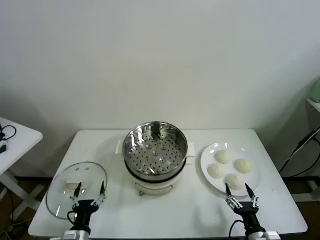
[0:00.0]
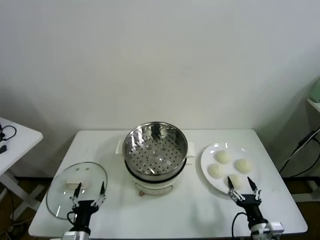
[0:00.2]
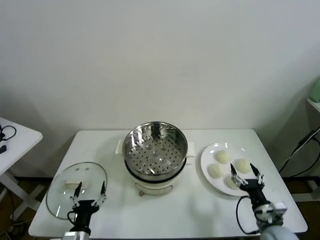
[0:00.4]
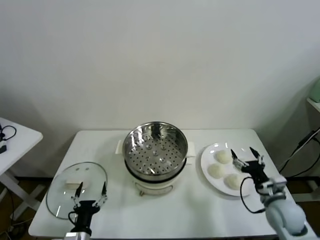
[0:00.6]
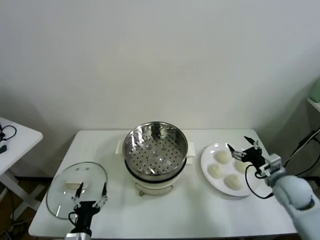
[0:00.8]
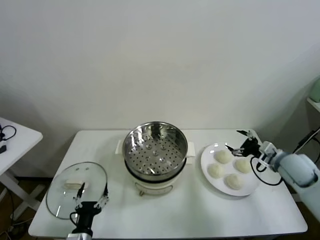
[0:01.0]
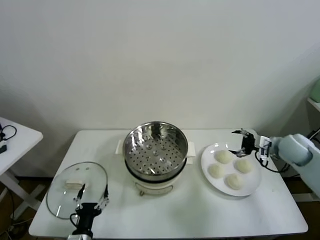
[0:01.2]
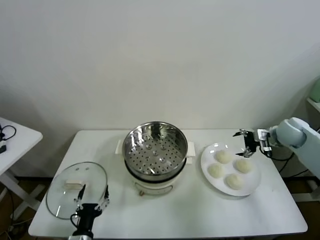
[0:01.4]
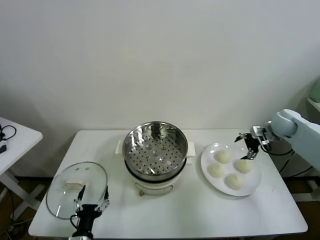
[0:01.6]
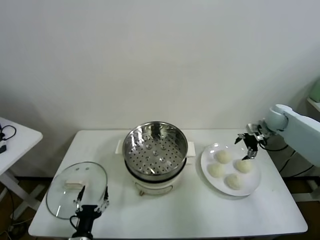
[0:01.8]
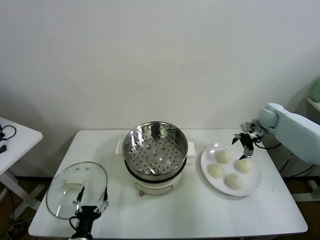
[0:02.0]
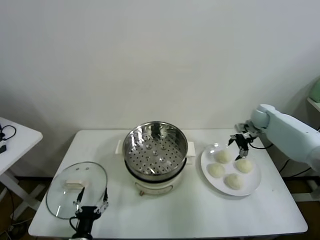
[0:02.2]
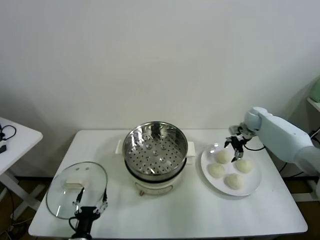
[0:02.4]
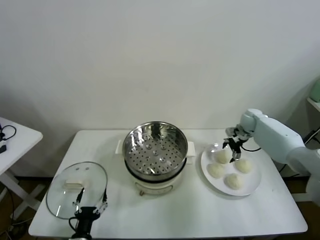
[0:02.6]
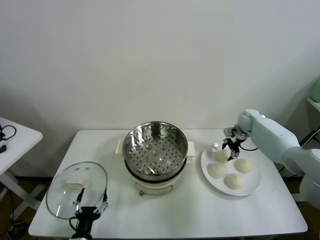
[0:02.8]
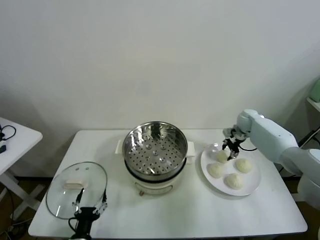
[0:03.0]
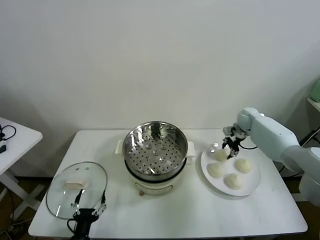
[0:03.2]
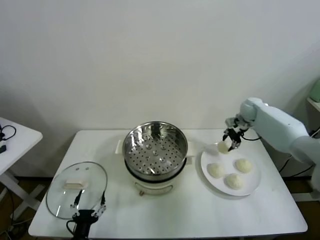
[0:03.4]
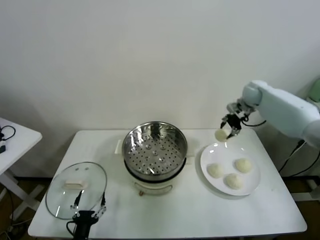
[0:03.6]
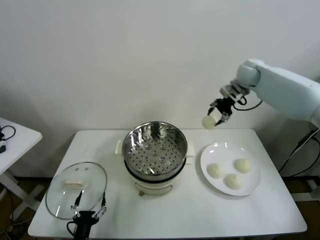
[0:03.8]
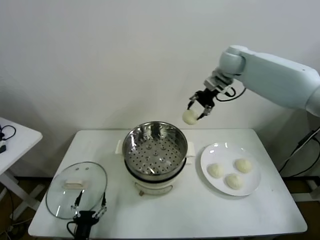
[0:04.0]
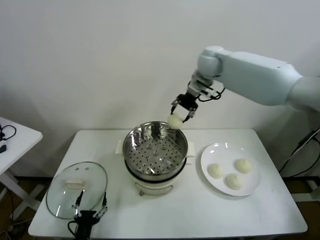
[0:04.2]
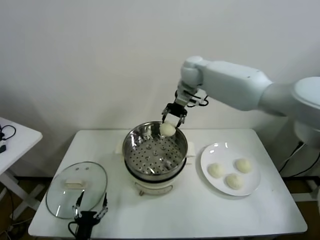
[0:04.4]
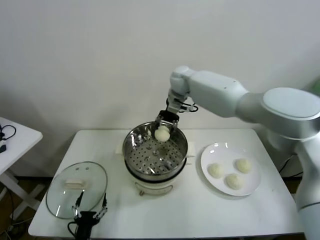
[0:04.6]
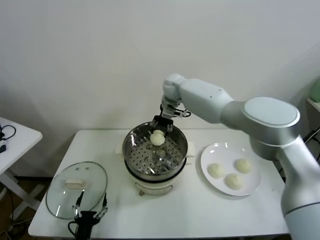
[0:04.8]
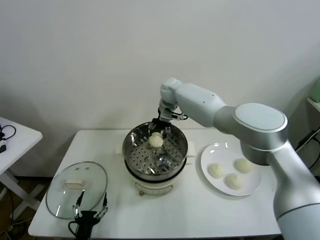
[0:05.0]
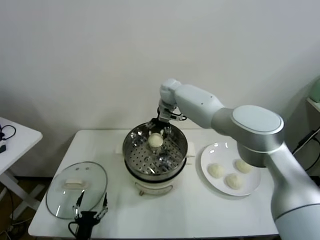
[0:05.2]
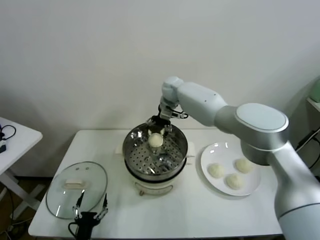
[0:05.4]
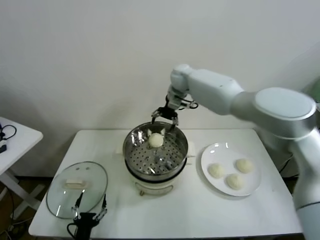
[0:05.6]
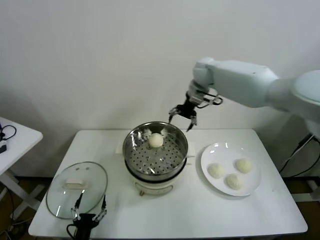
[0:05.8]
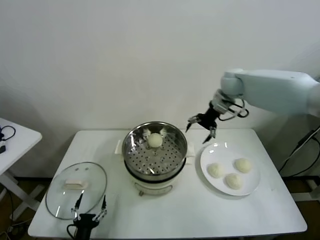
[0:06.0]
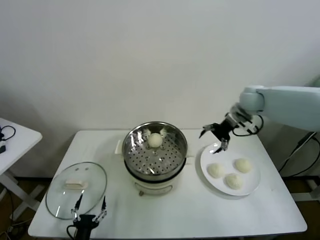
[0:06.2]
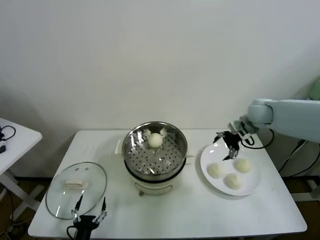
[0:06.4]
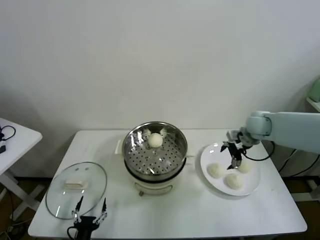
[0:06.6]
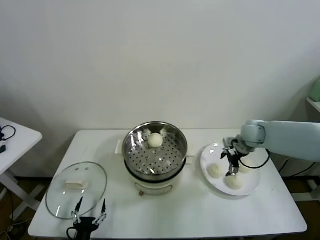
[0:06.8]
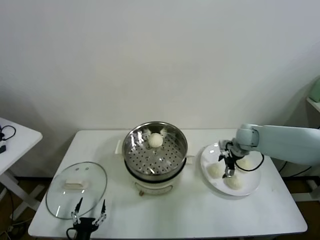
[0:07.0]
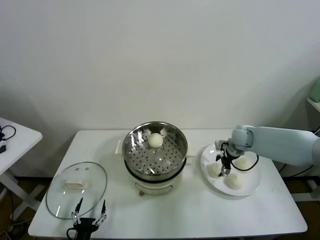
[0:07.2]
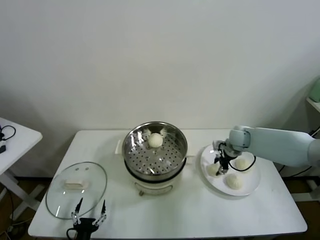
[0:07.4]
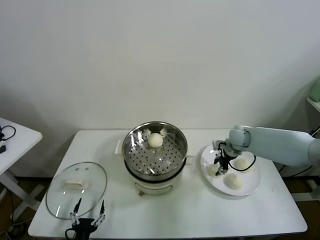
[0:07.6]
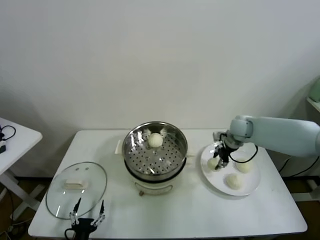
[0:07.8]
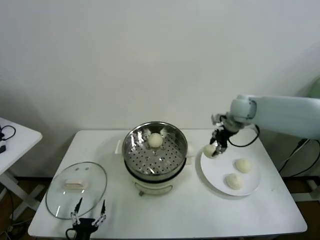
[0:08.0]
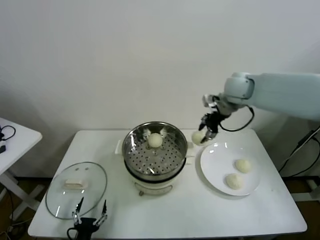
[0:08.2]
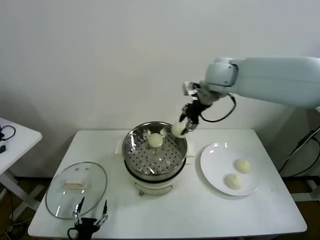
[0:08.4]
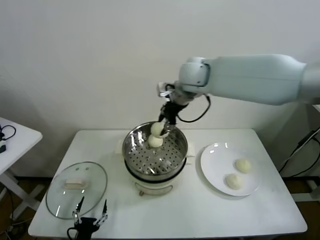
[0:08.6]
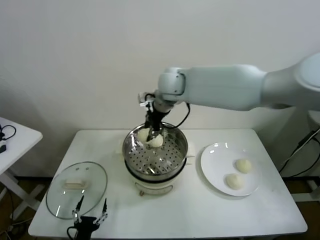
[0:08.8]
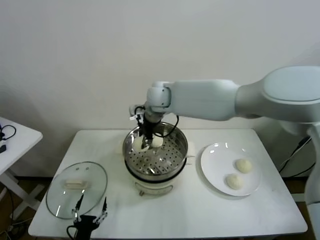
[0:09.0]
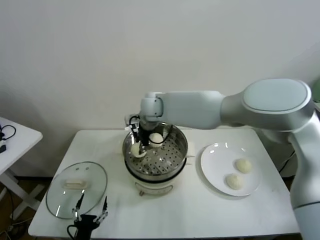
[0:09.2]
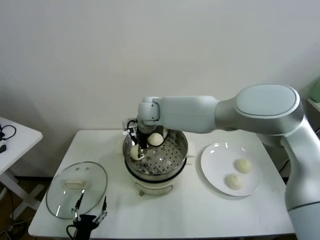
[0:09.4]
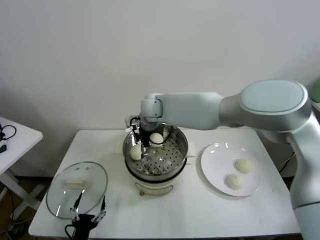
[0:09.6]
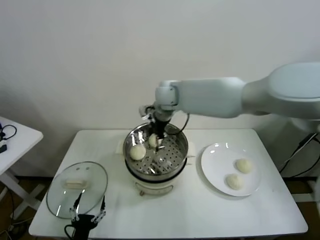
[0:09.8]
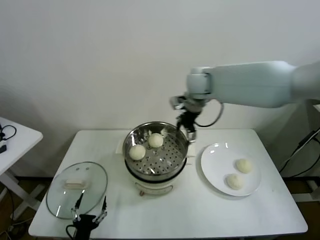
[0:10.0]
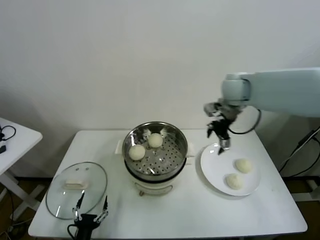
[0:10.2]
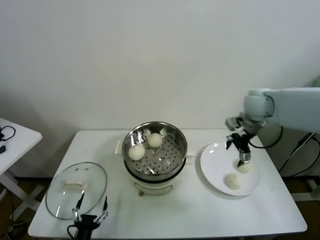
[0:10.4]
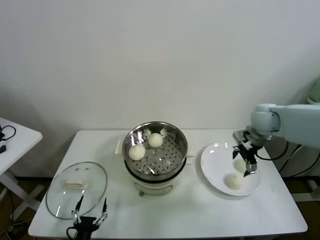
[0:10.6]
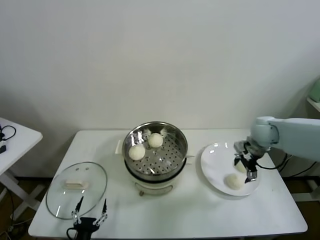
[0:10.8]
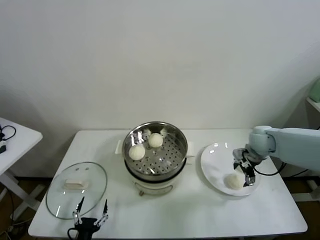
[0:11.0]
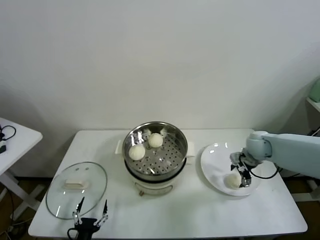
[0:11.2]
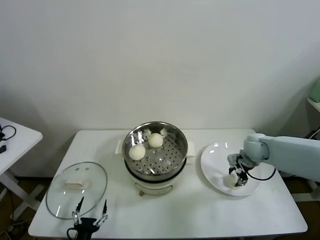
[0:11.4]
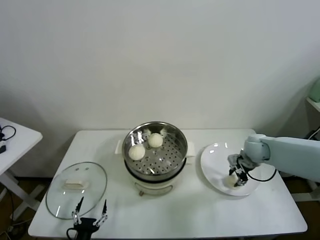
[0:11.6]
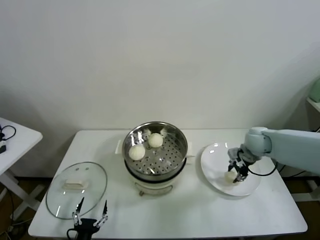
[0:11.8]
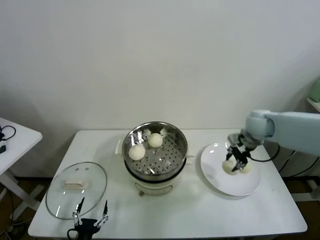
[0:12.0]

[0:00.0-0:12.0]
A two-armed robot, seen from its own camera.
Task of the whole recording: take steamed baozi put them in steamer.
Step, 0.0 to 2.6 s: Grasp the baozi in the plate with right gripper.
Step, 3.0 to 5.2 s: Place the baozi on the steamer with right gripper.
Step, 5.4 to 7.2 s: Grasp the baozi in the plate with right gripper.
Step, 7.4 to 9.4 s: Place the baozi on the steamer with right gripper.
Step, 9.6 to 11.4 s: Grasp the baozi in the plate with right gripper.
1.6 to 3.0 s: The right gripper is displaced forward, downward and to the left by roughly 15 cm, and closes its fingers.
3.0 to 4.4 s: The right gripper travels to the left and upward by some 35 cm.
4.4 to 6.0 s: The right gripper goes about 15 cm to the right, and opens up.
6.0 to 7.6 s: The right gripper goes roughly 20 cm downward, and closes.
7.6 to 9.0 s: The right gripper shifts some 35 cm to the left and upward.
9.0 to 10.4 s: The right gripper is displaced to the right by about 30 cm, and opens its fingers.
10.4 to 12.0 s: The right gripper heads downward, covering approximately 10 cm, and closes.

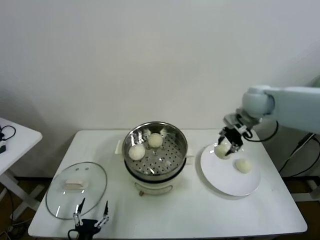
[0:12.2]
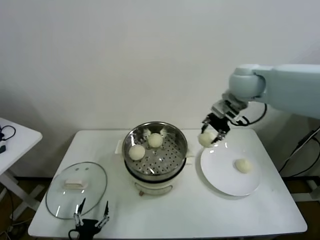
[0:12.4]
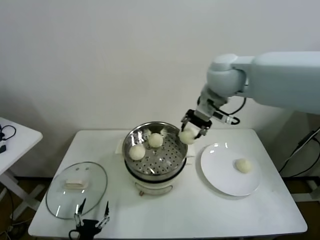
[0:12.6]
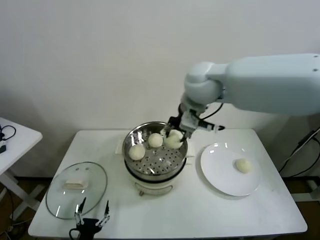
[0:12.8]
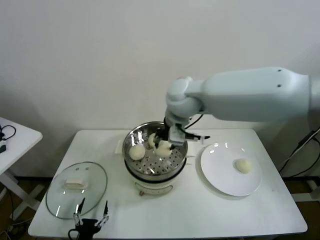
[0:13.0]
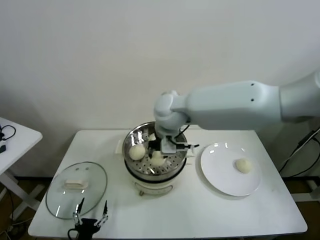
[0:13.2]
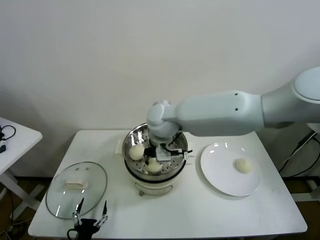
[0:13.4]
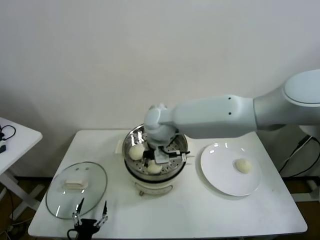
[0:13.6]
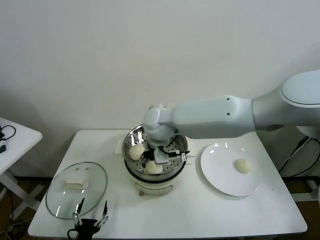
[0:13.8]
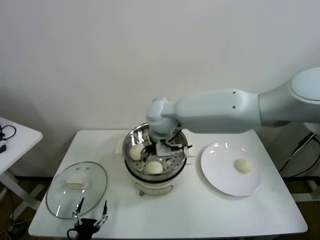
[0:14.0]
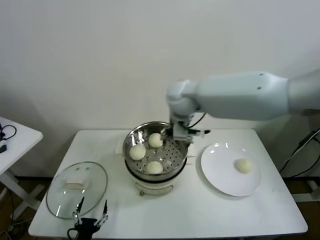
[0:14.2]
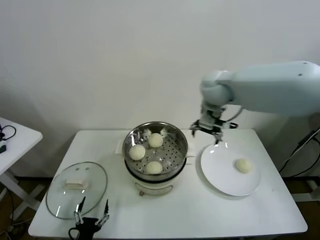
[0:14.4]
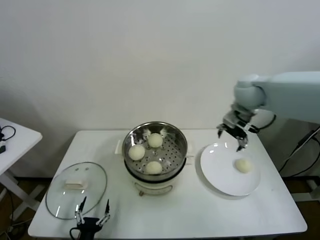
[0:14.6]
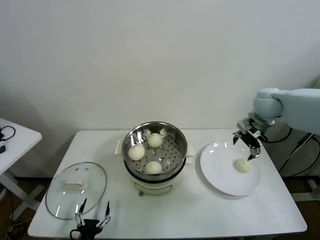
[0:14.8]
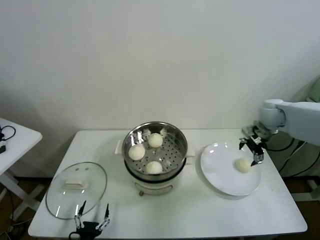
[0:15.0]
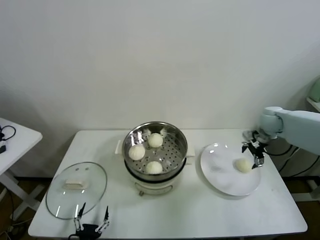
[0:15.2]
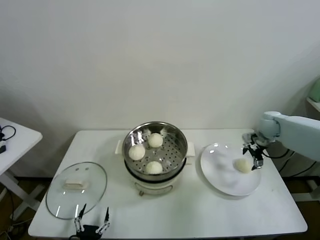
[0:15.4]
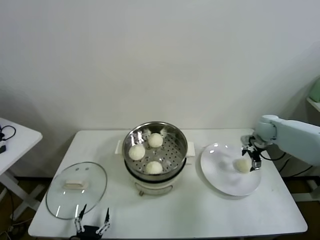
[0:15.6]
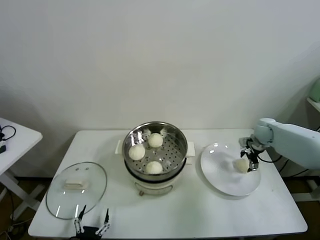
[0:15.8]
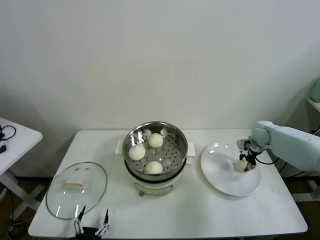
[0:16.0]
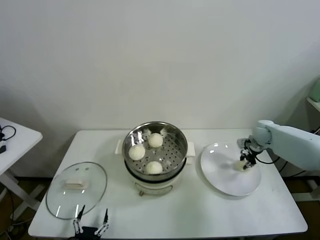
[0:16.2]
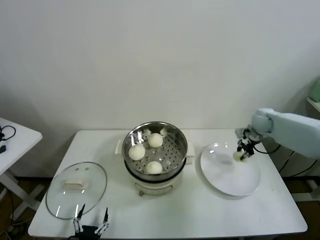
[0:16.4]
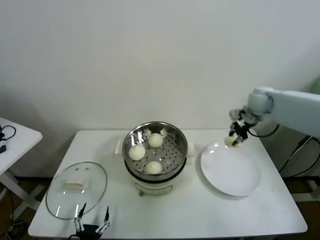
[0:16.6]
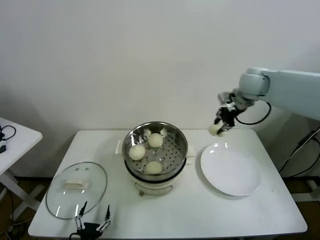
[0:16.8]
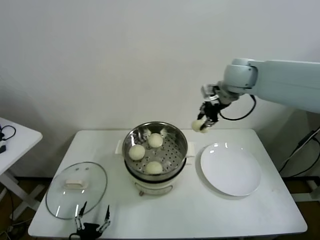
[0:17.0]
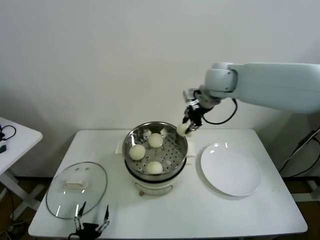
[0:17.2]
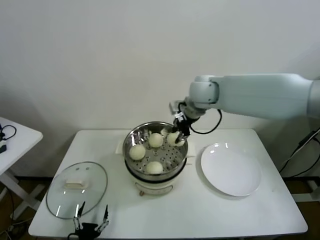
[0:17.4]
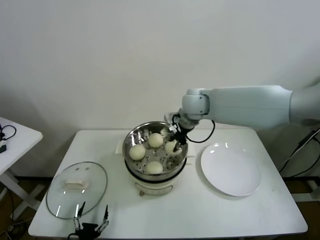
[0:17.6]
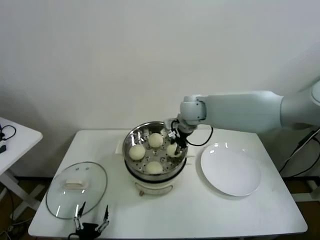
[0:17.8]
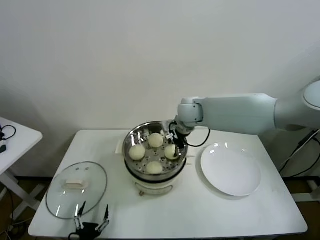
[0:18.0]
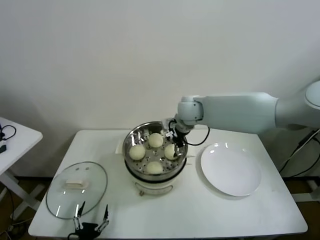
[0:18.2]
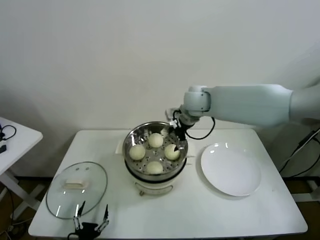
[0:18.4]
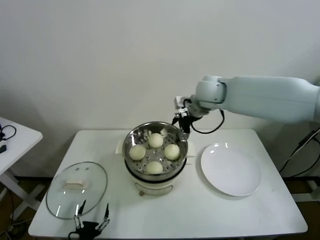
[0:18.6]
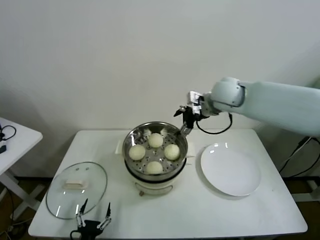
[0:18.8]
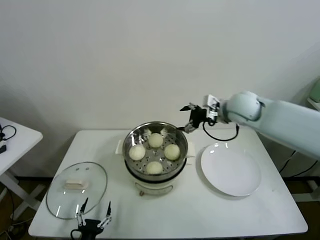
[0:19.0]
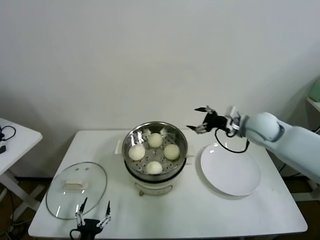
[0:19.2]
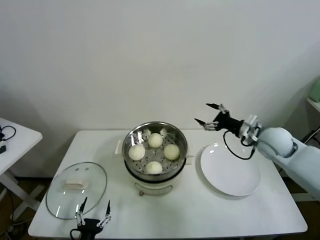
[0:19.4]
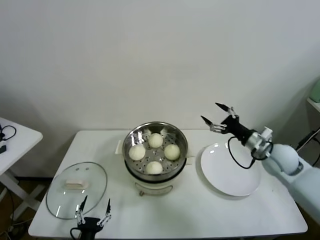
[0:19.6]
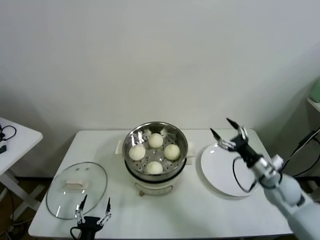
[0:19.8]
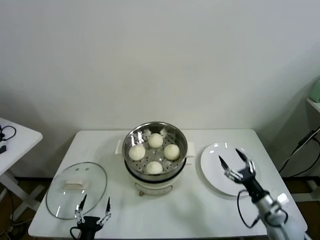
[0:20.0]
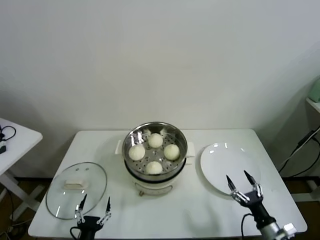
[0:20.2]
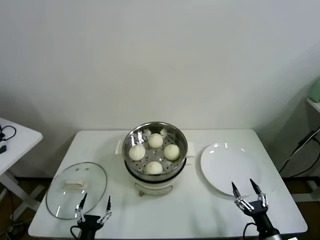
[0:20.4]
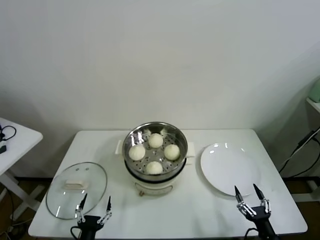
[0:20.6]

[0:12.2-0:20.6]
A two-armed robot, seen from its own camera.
Task of the whole recording: take steamed baozi put them in steamer.
Step, 12.2 to 13.8 s: Place the baozi on the steamer with right gripper.
Step, 14.0 to 15.8 s: Grasp the baozi in the plate with right gripper.
Step, 16.0 to 18.0 s: Place the baozi on the steamer with right gripper.
12.2 to 13.6 s: The right gripper travels to the left by approximately 30 cm.
13.6 to 15.0 s: The right gripper moves to the right, approximately 40 cm, and opens its fingers.
15.0 to 16.4 s: The right gripper moves downward, roughly 10 cm, and closes.
16.4 to 17.8 s: The right gripper goes approximately 30 cm to the left.
17.8 to 19.2 s: The right gripper goes some 20 cm to the right, and opens.
19.2 to 20.6 s: The right gripper goes some 50 cm backward and downward.

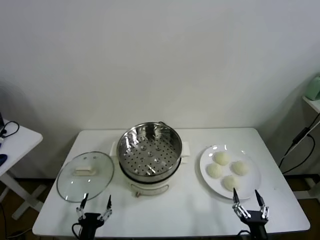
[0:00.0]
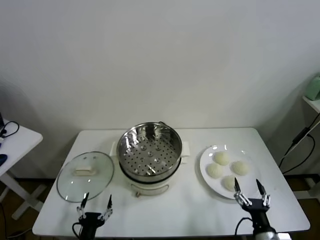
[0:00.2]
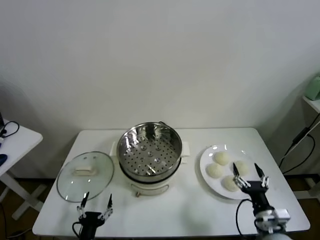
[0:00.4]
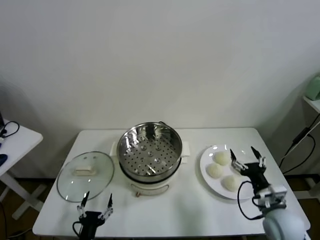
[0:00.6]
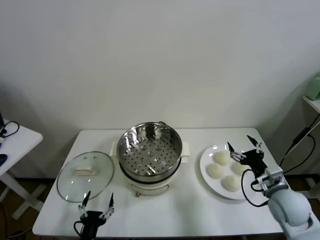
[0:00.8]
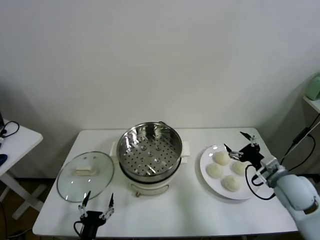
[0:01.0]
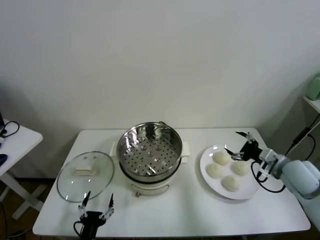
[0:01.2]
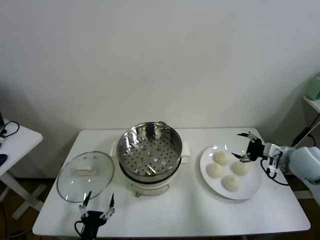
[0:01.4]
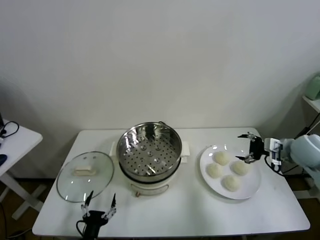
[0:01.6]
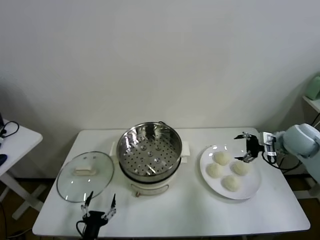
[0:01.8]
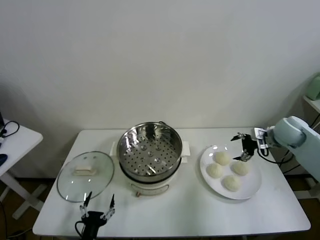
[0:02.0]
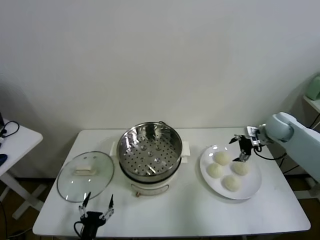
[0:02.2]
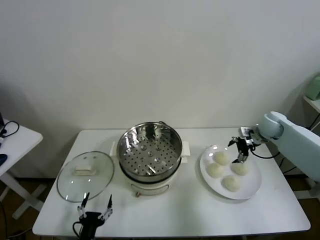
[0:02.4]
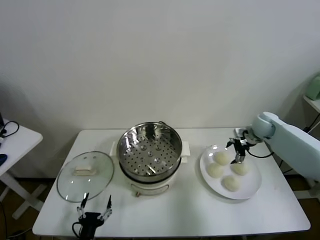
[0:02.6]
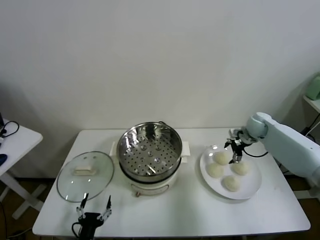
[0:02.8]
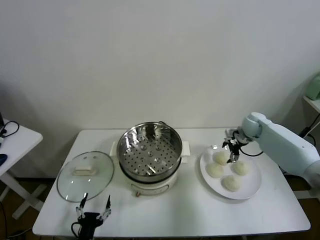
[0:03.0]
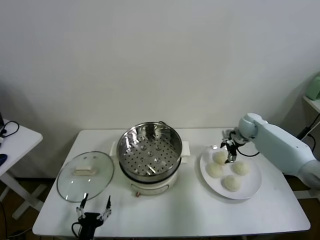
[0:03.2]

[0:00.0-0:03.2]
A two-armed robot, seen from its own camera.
Task of the whole recording: take steamed baozi put them in steamer.
1.6 to 3.2 s: The right gripper goes roughly 20 cm forward, downward and to the left.
